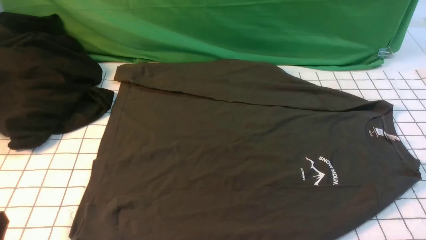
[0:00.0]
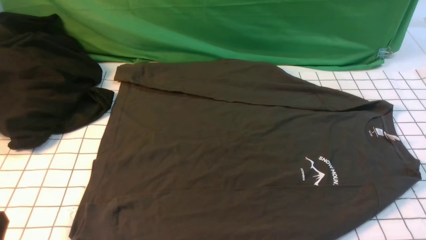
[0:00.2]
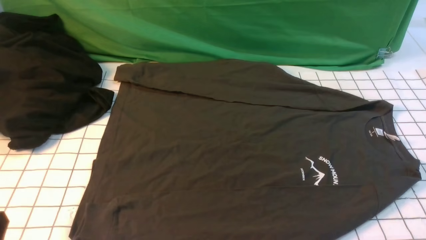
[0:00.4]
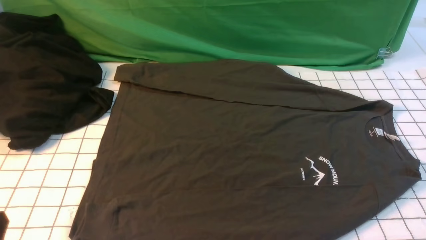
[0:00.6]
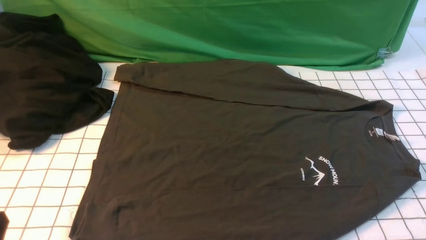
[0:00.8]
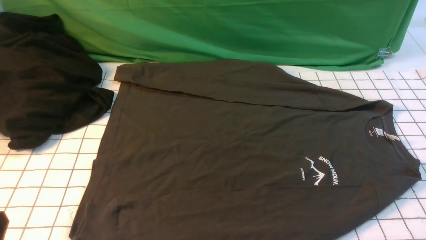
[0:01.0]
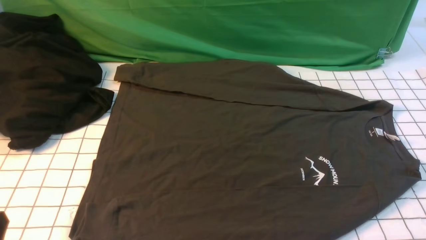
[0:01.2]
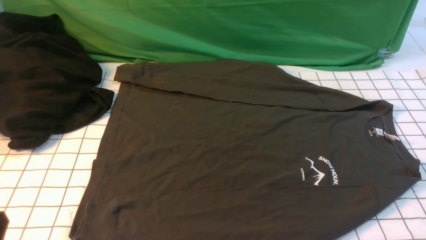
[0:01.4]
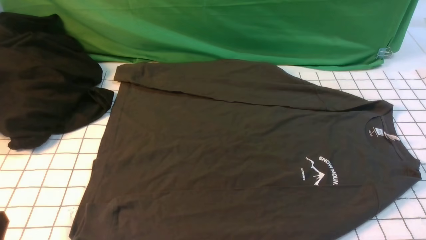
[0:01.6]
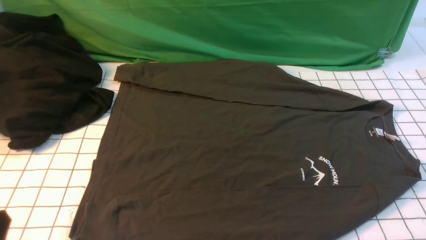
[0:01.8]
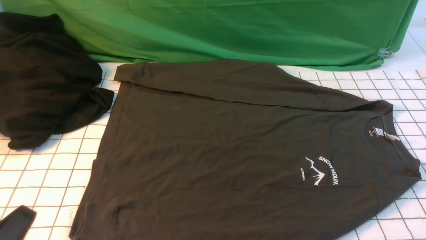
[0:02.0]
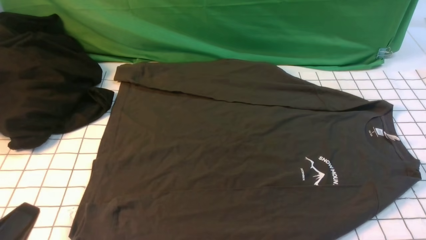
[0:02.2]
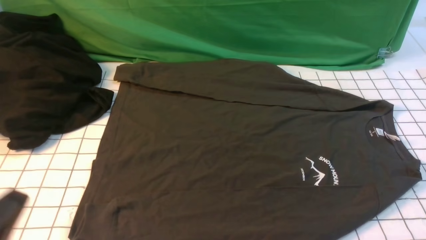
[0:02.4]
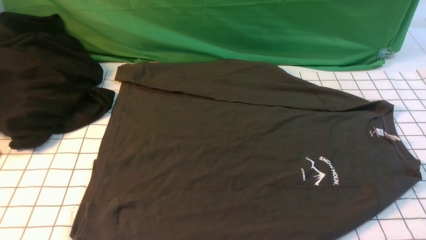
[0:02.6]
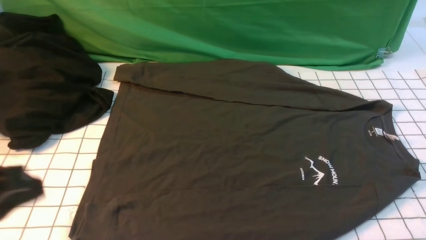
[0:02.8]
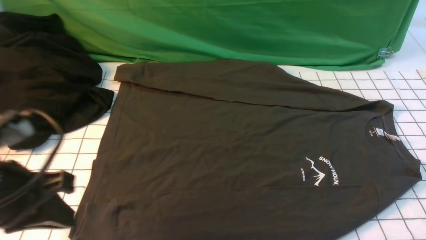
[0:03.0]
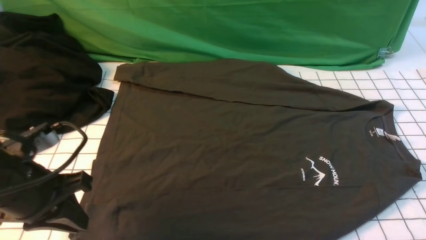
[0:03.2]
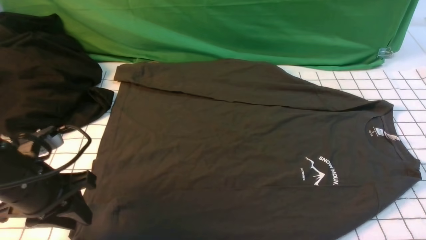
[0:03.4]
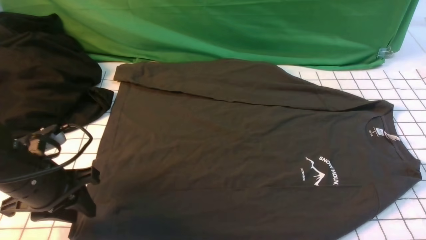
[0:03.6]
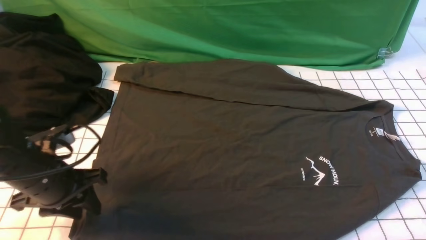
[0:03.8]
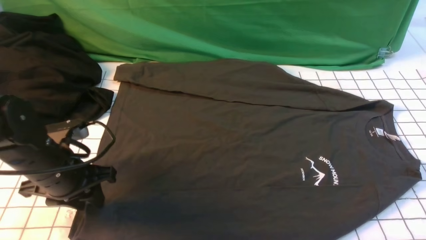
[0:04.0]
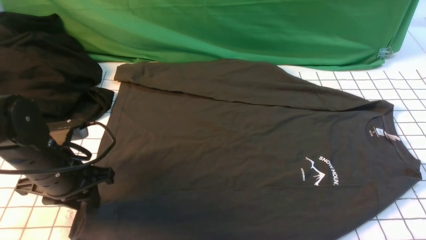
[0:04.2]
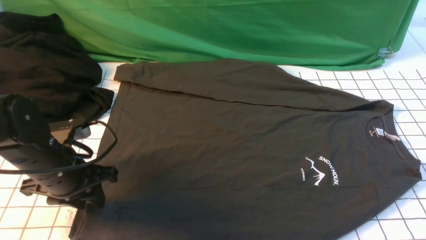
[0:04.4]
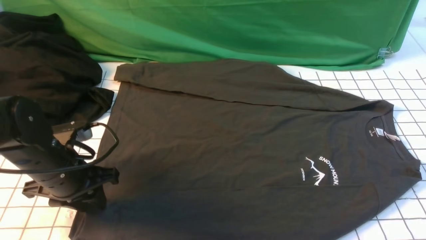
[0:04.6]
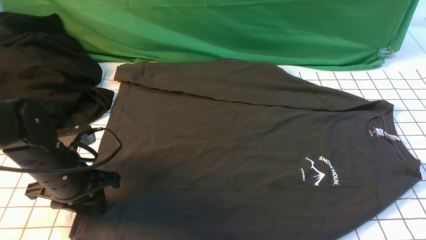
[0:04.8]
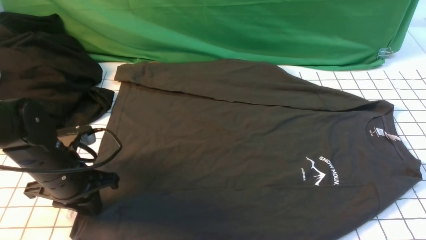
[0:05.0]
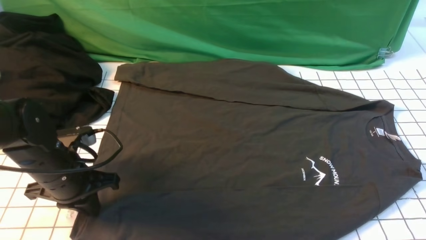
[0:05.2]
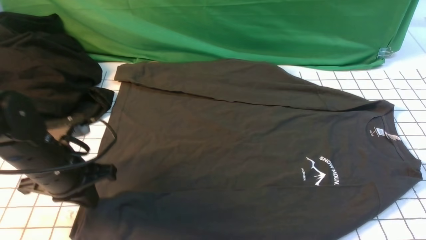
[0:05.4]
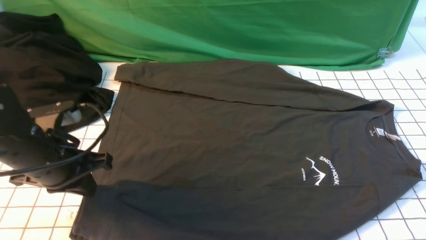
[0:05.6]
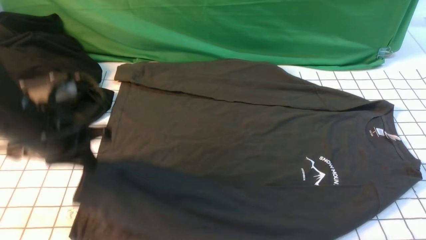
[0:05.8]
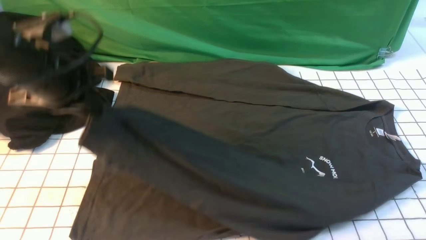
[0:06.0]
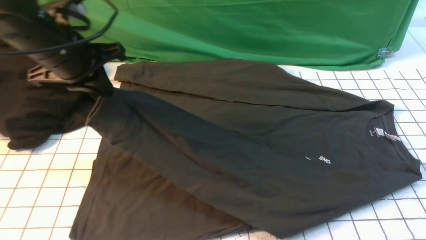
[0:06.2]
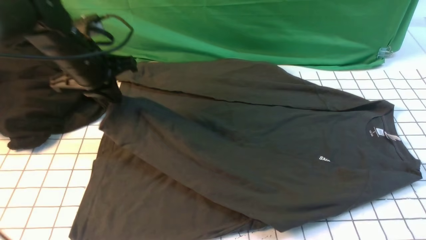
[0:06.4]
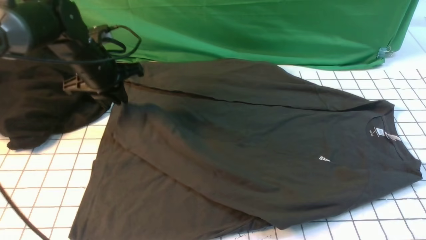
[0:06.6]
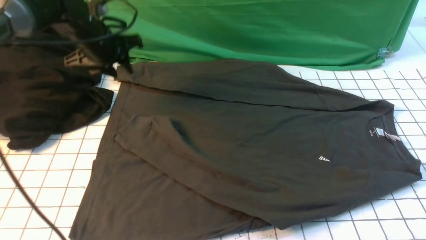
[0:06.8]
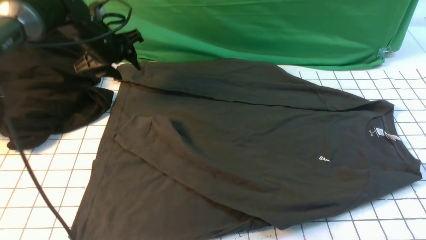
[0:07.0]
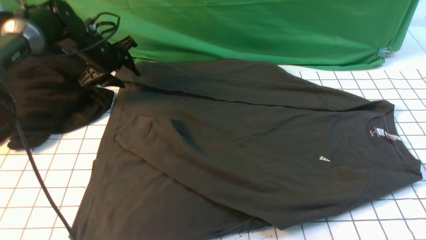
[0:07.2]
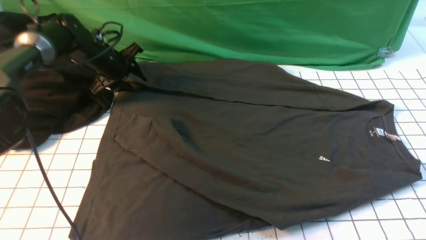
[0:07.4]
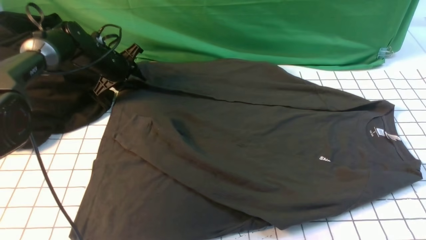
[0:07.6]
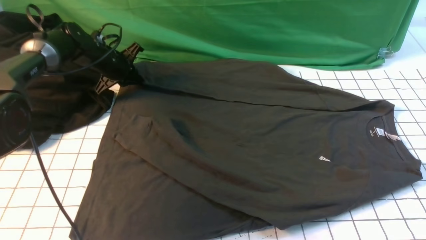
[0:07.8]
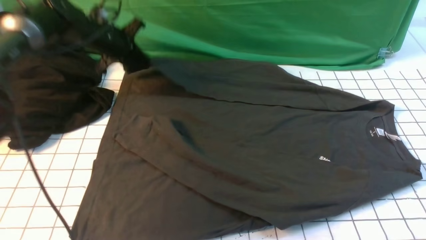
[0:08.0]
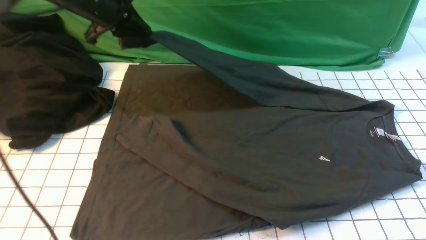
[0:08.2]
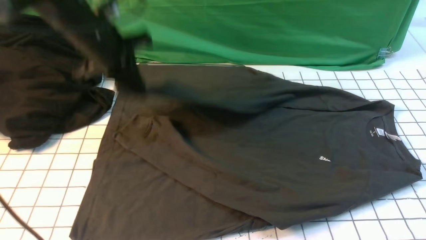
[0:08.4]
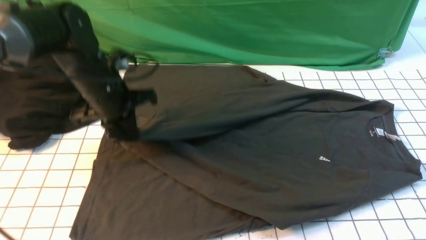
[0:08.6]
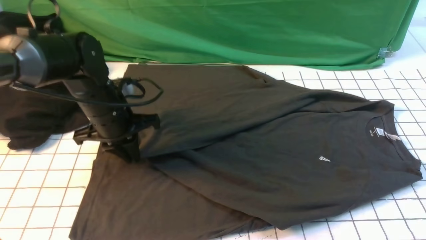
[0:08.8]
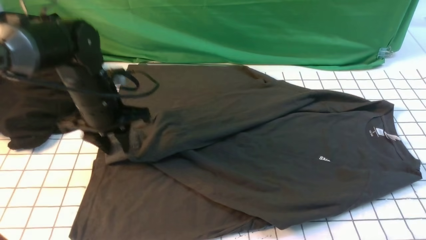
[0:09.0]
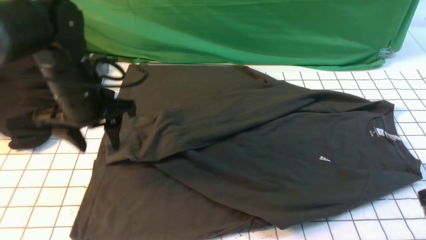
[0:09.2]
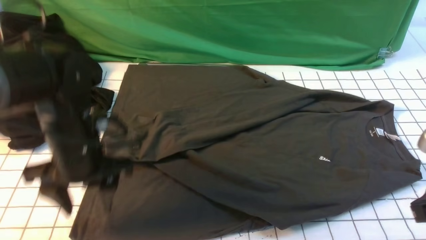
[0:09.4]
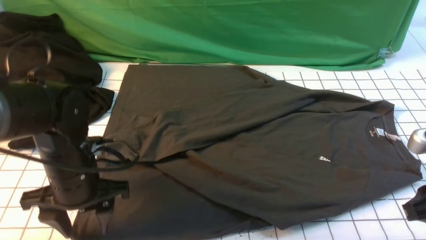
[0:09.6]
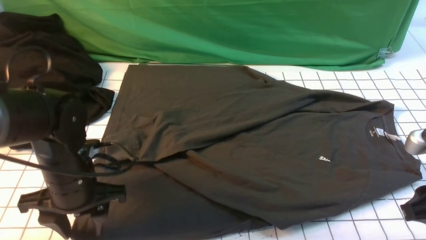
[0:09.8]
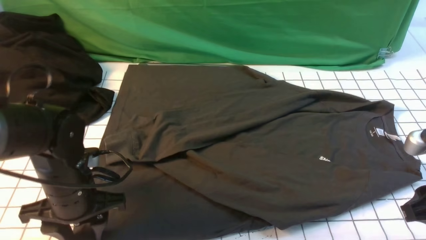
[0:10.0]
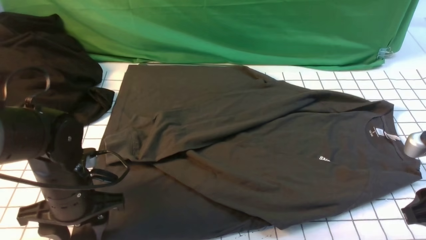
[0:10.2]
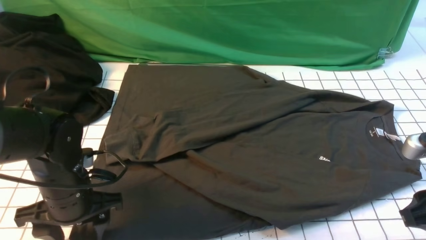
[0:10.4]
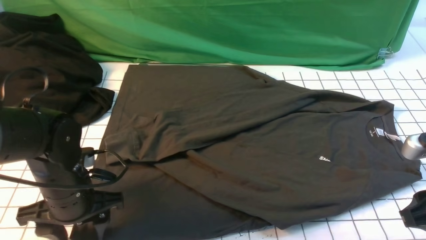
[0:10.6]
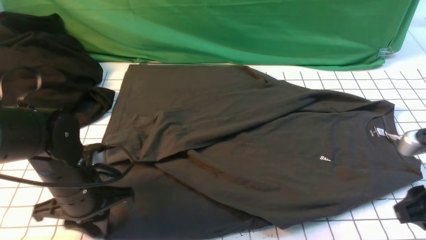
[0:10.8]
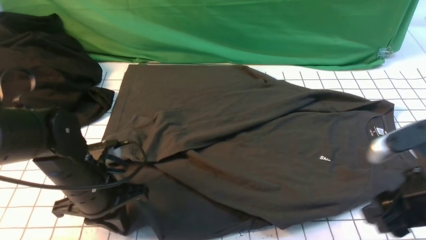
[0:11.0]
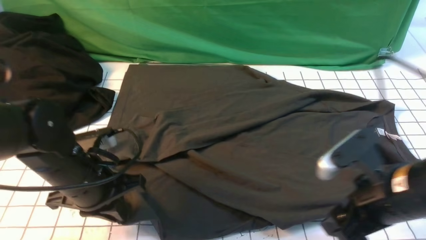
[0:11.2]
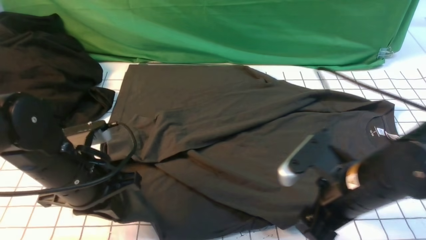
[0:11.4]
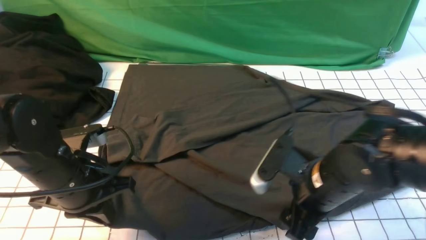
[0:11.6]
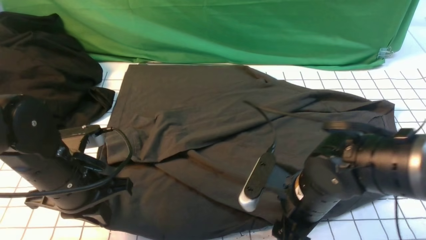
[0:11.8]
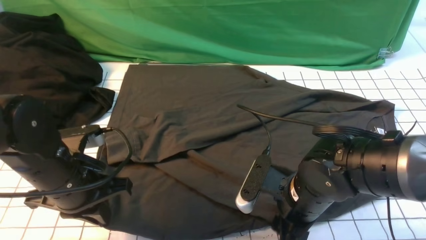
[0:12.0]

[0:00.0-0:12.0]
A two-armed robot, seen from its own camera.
Step, 0:00.0 to 0:05.6: use the left arm to clamp the cuff closest to it.
Step, 0:05.8 to 0:06.6: use the left arm to drag and place the cuff at the centered position on the left edge of the fabric.
Step, 0:06.8 to 0:07.8: use the left arm to clamp the cuff farthest from it.
Step, 0:08.0 to 0:09.0: use the left arm to drag and drop the cuff onto the cuff closest to the left arm.
0:00.0 to 0:01.6: The two grippers keep their place.
0:01.6 to 0:03.0: The left gripper shifts about 15 cm forward and upward.
0:03.0 to 0:04.4: The left gripper shifts approximately 15 cm forward and downward, and opens.
0:04.4 to 0:06.0: The left gripper heads upward, covering about 15 cm, and closes up.
0:06.0 to 0:07.6: The left gripper goes some 25 cm forward and downward, and opens, then closes again.
0:07.6 to 0:09.0: The left gripper goes roughly 20 cm backward.
0:09.0 to 0:10.4: The left gripper goes roughly 15 cm backward and downward, while the right gripper shifts by roughly 5 cm.
0:10.4 to 0:12.0: The left gripper is displaced upward by roughly 5 cm, and closes; the right gripper moves to the left and downward, some 20 cm, and opens, then closes again.

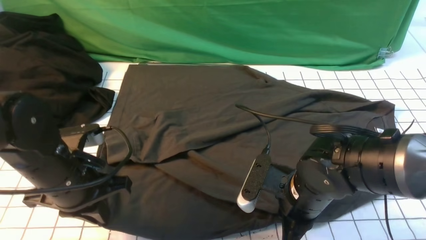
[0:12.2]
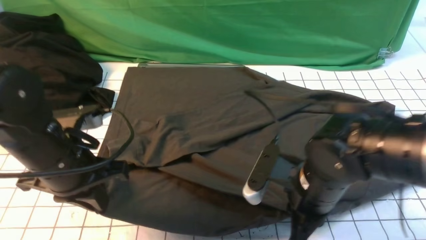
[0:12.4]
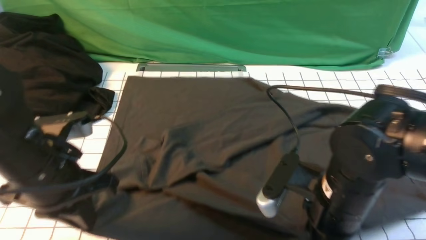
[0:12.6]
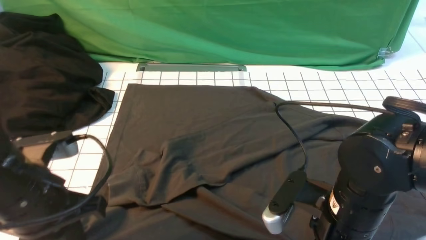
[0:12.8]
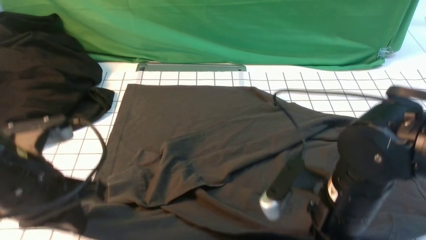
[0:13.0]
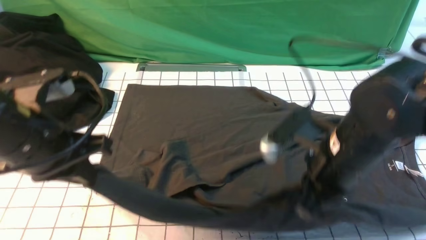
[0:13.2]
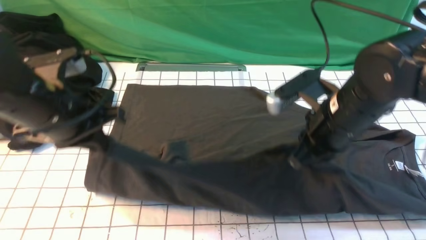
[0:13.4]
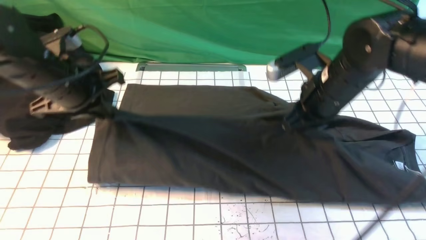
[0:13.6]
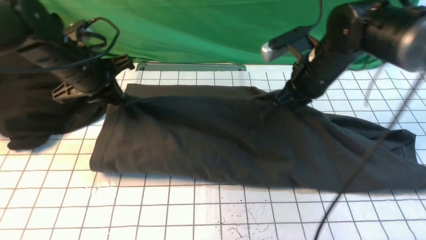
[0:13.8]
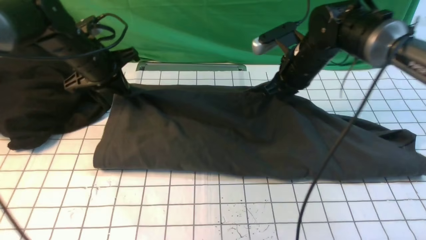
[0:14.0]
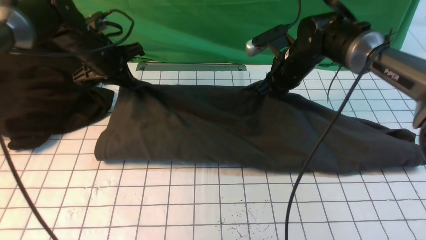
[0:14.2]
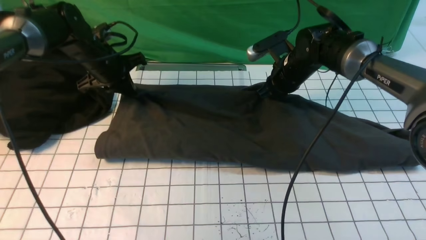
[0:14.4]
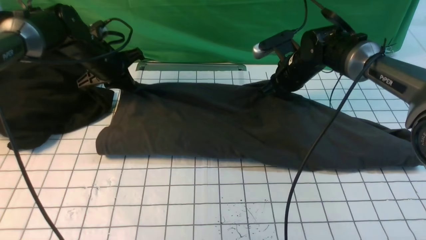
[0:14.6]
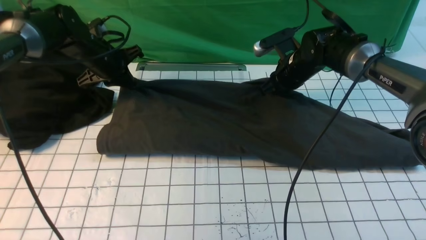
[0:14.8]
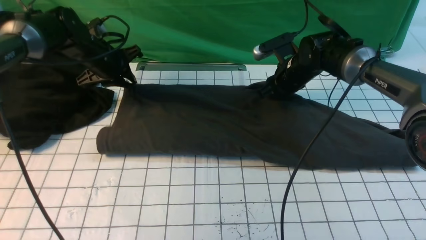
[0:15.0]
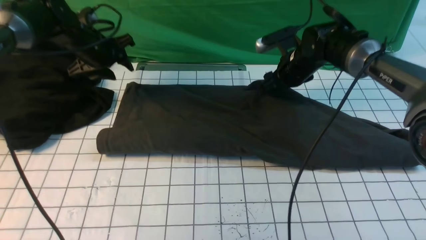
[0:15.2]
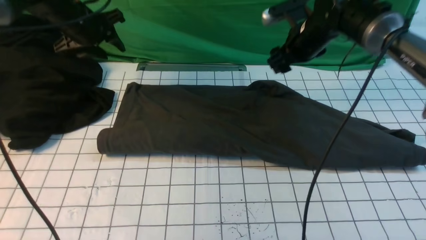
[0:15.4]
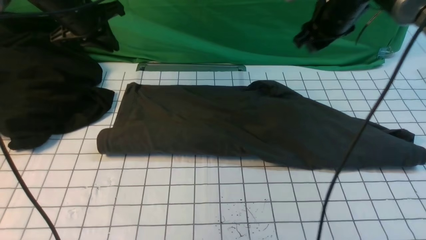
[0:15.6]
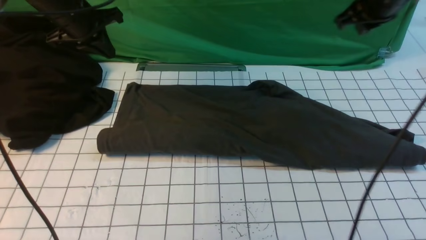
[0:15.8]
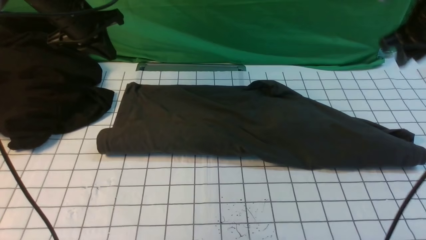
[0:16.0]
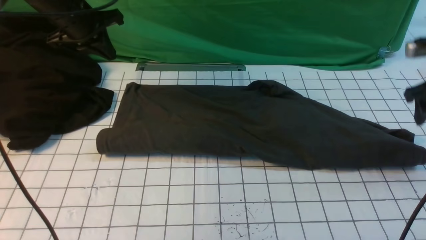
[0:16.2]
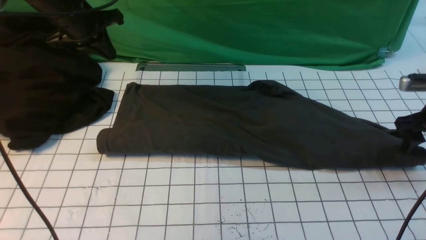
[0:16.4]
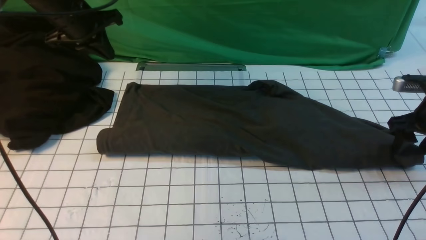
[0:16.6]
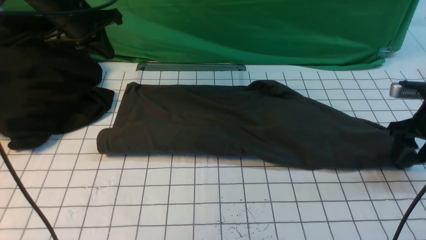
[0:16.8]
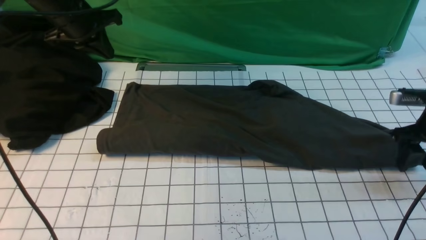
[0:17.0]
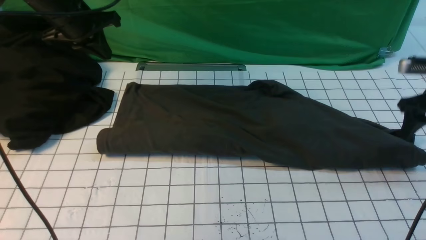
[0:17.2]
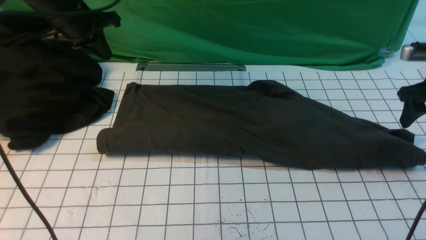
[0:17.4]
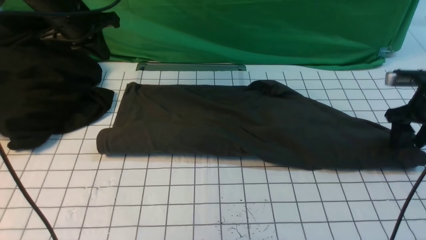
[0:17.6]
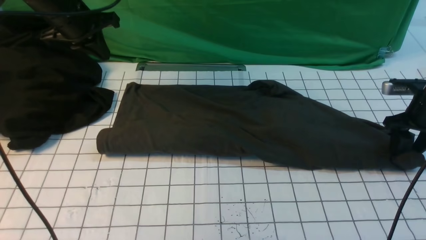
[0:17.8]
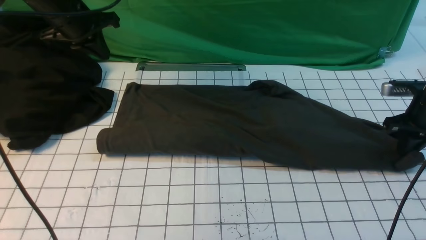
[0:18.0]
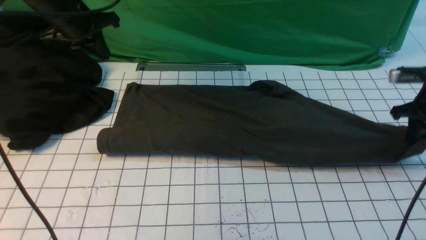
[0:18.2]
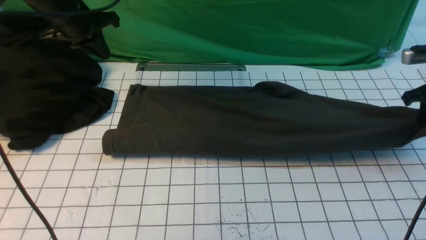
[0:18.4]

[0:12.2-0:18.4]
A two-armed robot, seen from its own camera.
Step, 0:13.2 to 0:15.4: use both arms to drag the lower edge of the fabric forward and fold it over the upper edge.
0:12.2 to 0:13.8: The right gripper shifts about 20 cm forward and upward; the left gripper travels forward by roughly 15 cm.
0:13.8 to 0:15.4: The grippers both shift forward by approximately 10 cm. The right gripper opens up, while the left gripper opens.
0:15.4 to 0:16.8: The left gripper closes its fingers. Meanwhile the right gripper goes approximately 25 cm to the right and backward, and closes, then reopens.
0:16.8 to 0:18.4: The right gripper changes place by roughly 5 cm, and closes.
